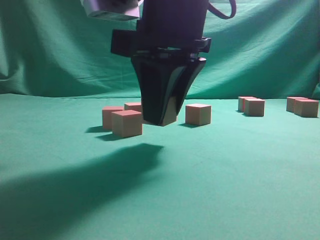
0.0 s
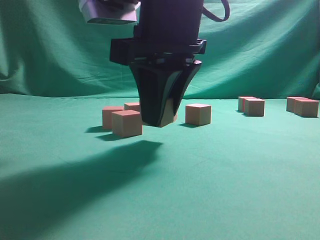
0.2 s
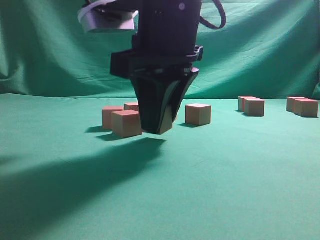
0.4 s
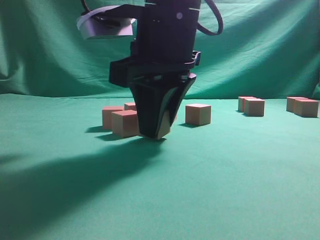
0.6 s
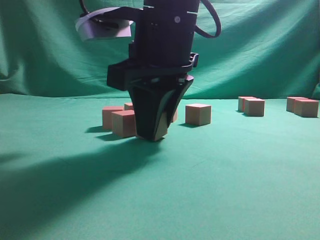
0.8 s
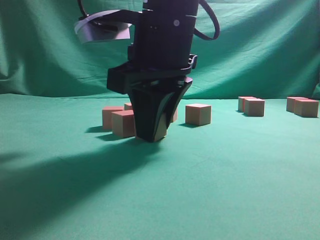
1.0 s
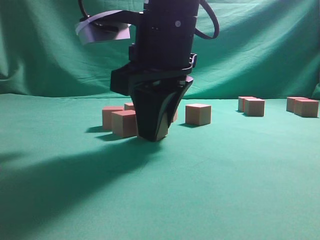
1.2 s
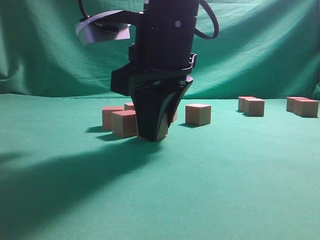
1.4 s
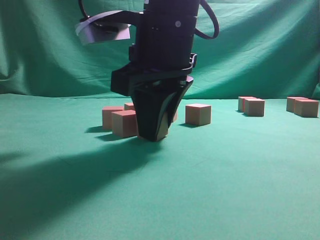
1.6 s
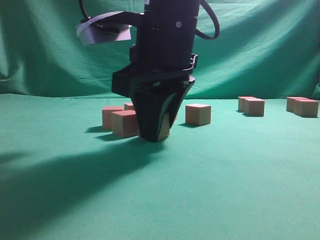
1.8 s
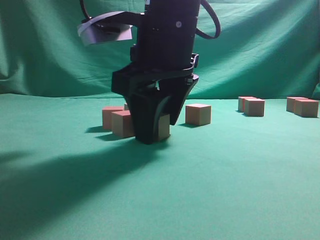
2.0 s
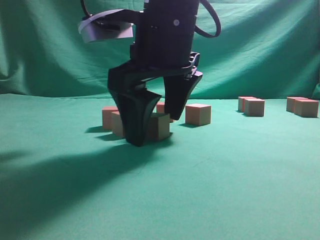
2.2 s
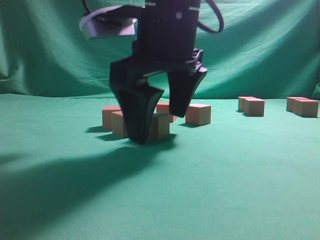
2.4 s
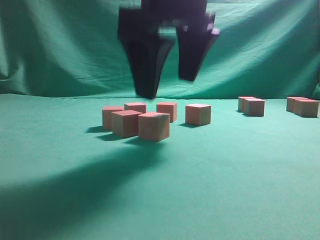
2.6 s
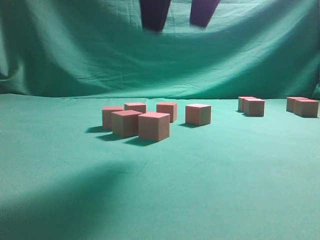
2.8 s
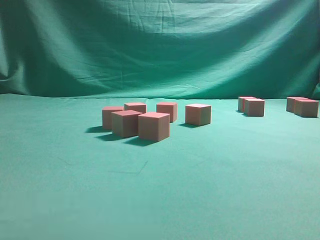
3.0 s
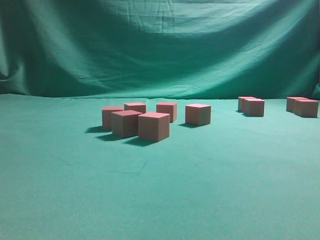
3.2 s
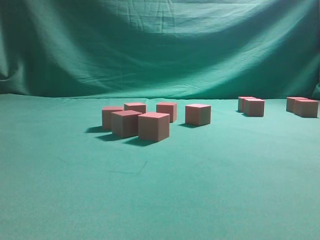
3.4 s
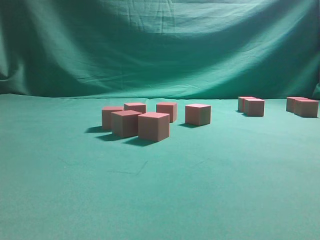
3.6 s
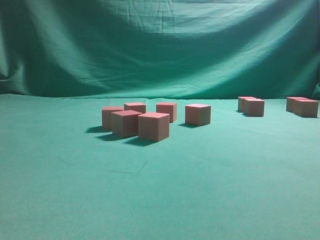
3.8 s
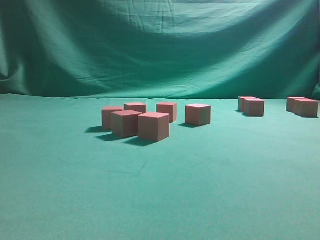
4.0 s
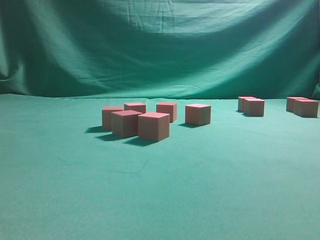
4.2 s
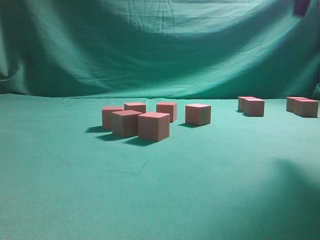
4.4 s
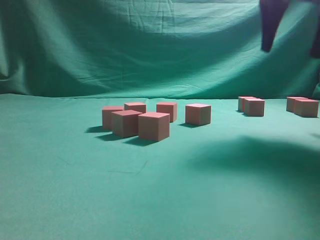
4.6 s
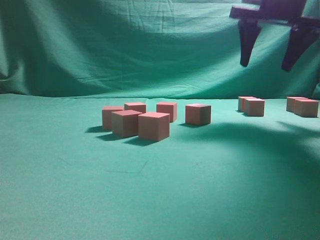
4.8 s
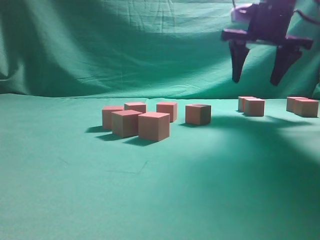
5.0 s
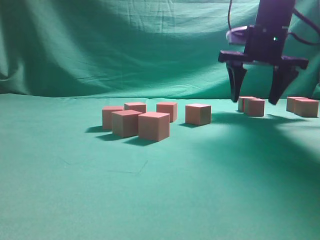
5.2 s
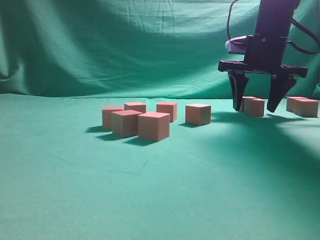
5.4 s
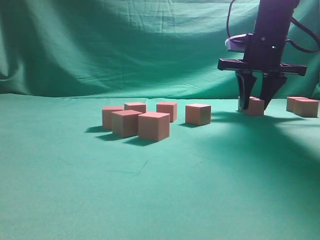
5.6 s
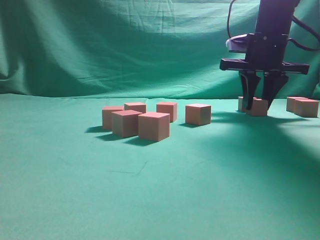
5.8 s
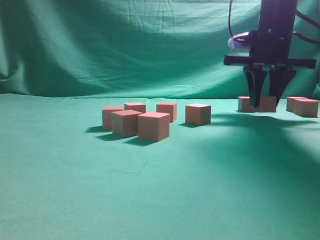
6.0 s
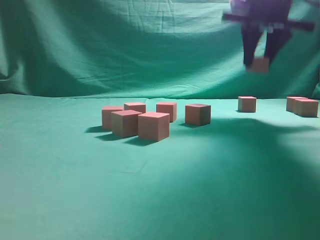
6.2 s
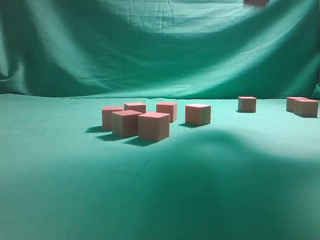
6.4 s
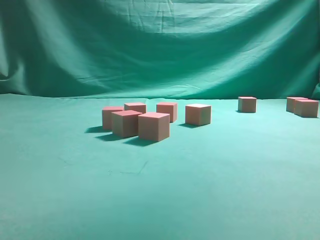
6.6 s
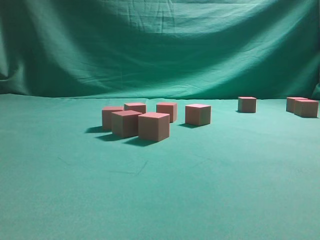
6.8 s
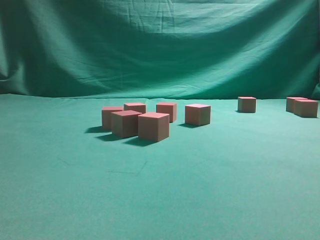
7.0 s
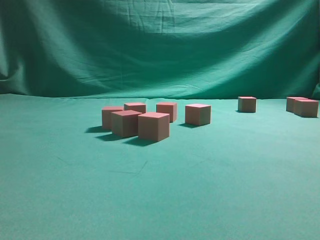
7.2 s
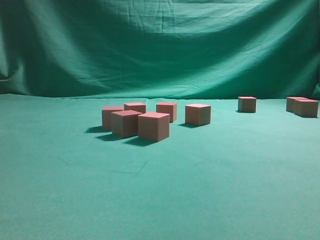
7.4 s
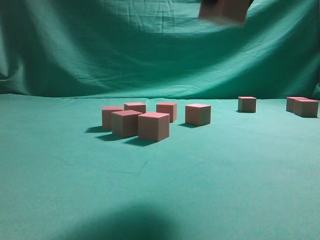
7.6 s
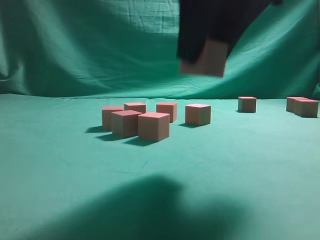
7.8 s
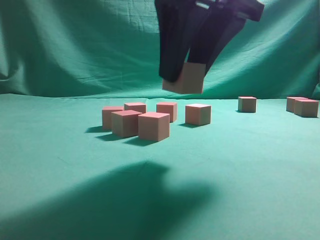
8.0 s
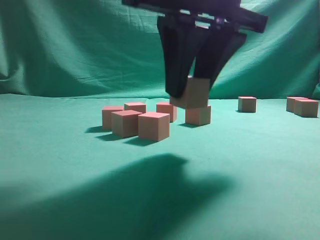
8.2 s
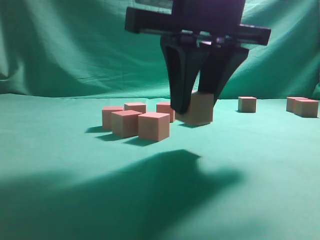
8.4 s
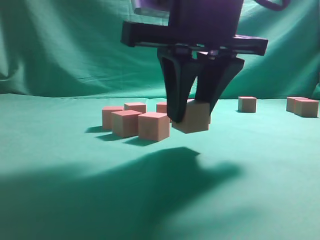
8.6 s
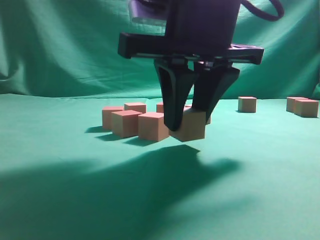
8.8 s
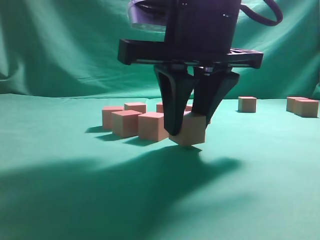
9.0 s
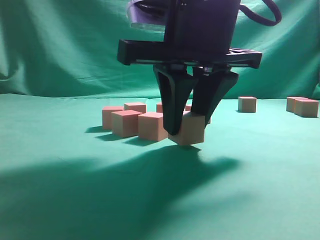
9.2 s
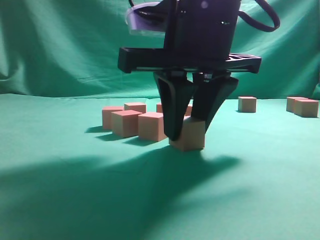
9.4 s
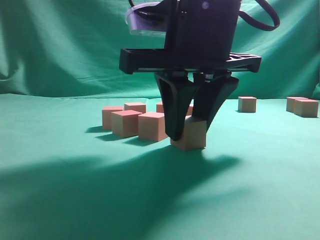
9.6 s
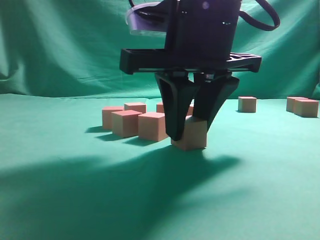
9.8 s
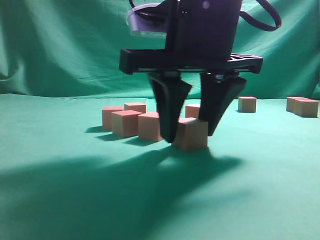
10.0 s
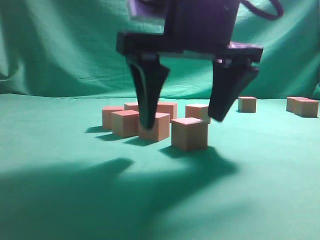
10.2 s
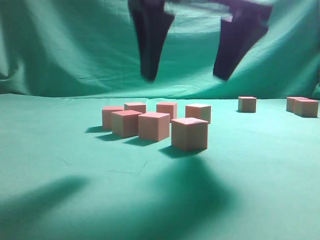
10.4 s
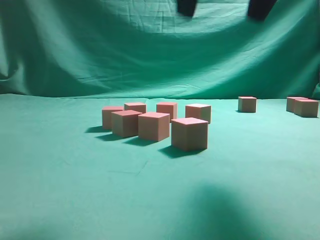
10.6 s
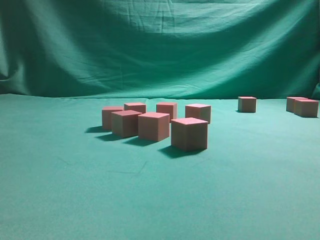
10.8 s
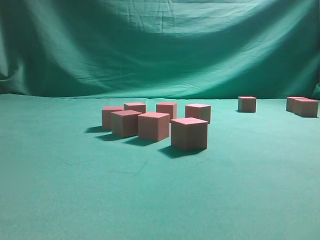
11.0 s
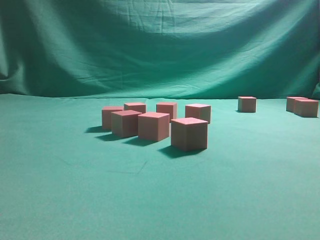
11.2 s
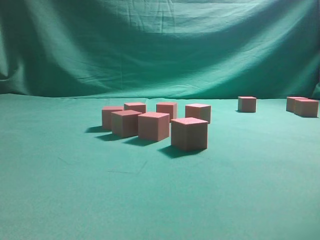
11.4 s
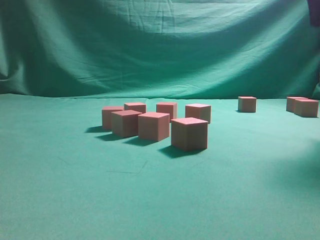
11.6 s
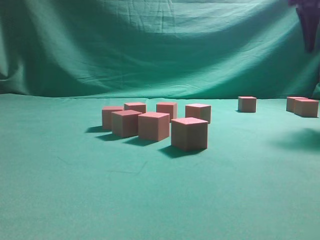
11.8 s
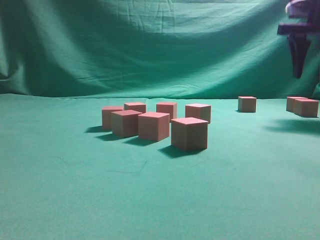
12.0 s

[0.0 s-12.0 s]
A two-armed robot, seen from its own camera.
Task of the whole recording: pick up the multiple cubes in two columns one by one and place them in another position on the table.
Step, 0.0 to 2.6 s: Place the block at the correct position to assemble the letter S.
Step, 2.8 to 5.8 s: Pick up the block on the table.
Step, 6.0 to 10.2 s: Place the block at the correct position to assemble the letter S.
0.0 to 1.6 s: There are only small adjustments of the grippers.
1.6 to 3.0 s: The right gripper travels upward by some 20 cm, and opens up.
3.0 to 4.4 s: The right gripper shifts roughly 20 cm to the right, forward and downward.
4.4 to 6.0 s: The right gripper shifts some 20 cm forward and downward, and closes its fingers.
6.0 to 7.6 s: The right gripper goes approximately 25 cm backward and to the left, and travels upward and back again, about 25 cm each way.
7.6 to 9.0 s: The right gripper is displaced downward by about 10 cm.
9.0 to 10.4 s: The right gripper moves upward, approximately 5 cm, and opens up.
10.4 to 12.0 s: The right gripper moves to the right and forward, approximately 30 cm.

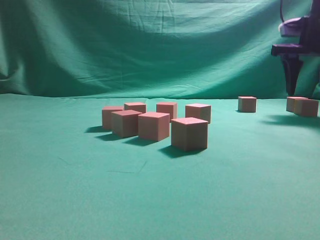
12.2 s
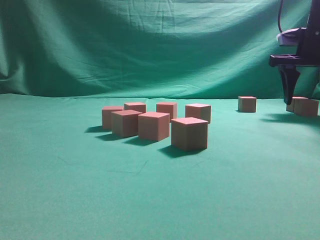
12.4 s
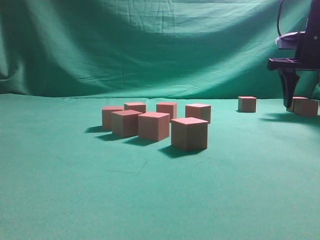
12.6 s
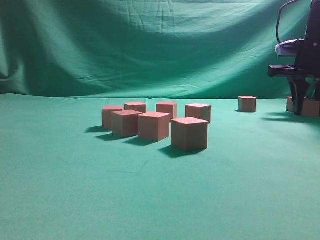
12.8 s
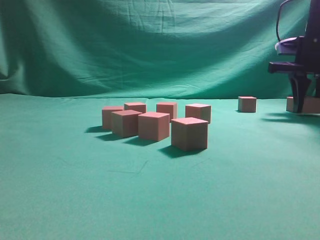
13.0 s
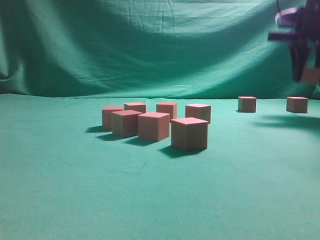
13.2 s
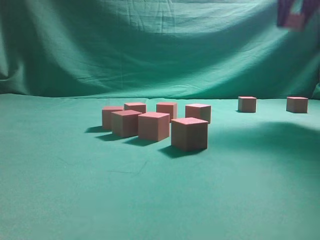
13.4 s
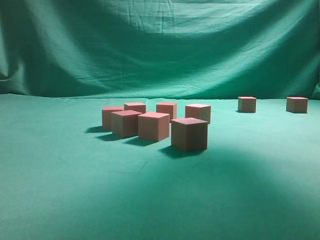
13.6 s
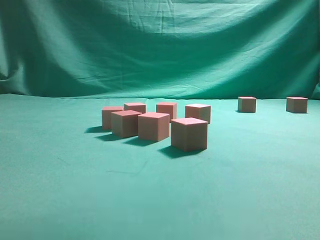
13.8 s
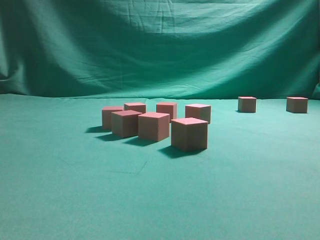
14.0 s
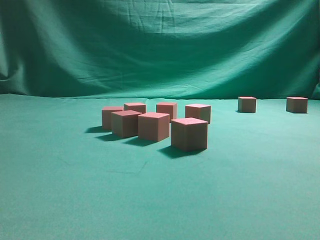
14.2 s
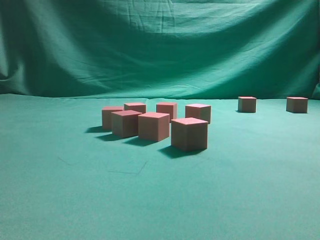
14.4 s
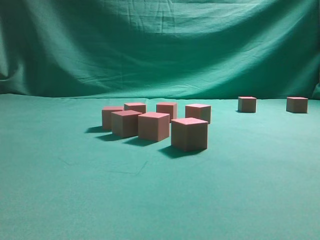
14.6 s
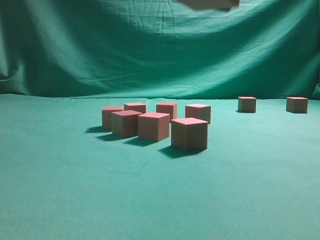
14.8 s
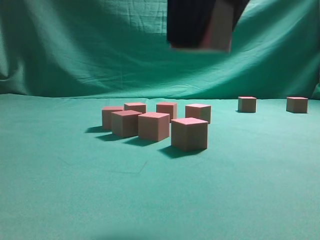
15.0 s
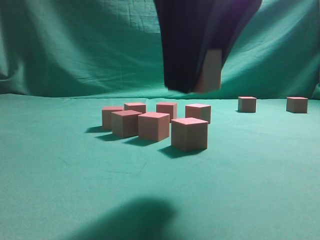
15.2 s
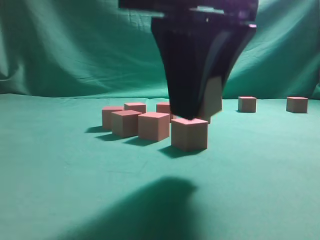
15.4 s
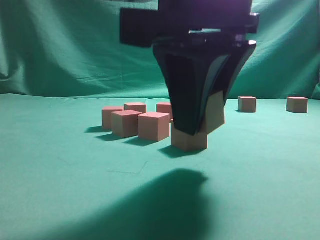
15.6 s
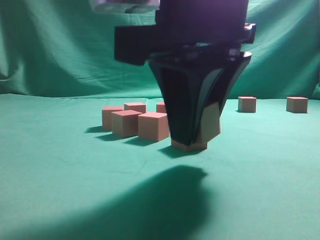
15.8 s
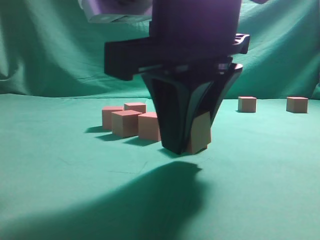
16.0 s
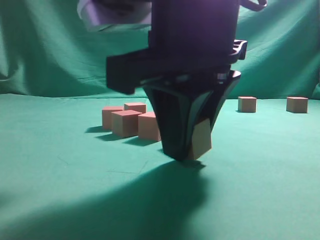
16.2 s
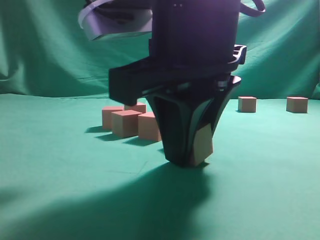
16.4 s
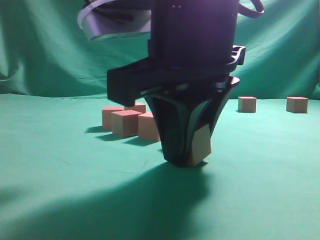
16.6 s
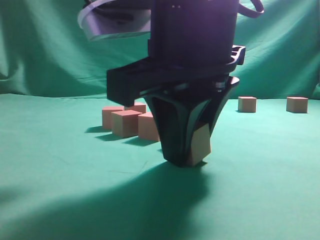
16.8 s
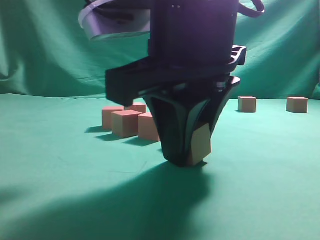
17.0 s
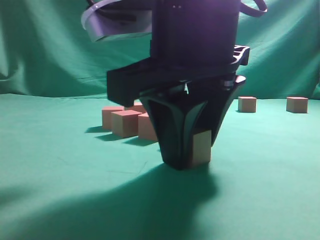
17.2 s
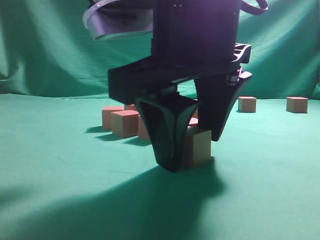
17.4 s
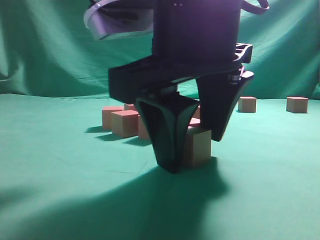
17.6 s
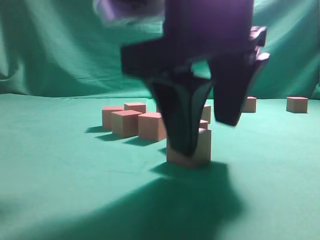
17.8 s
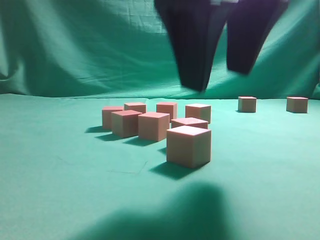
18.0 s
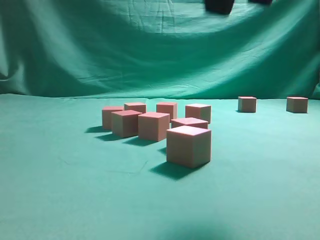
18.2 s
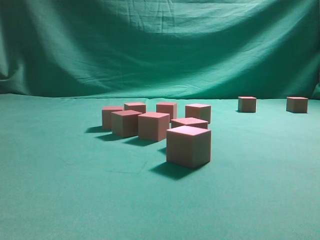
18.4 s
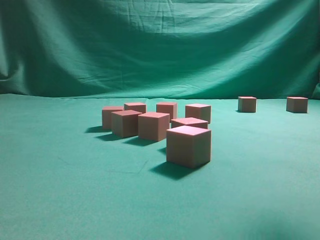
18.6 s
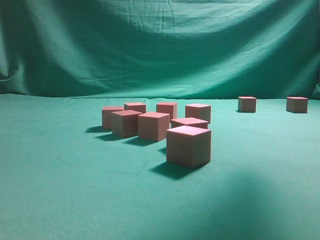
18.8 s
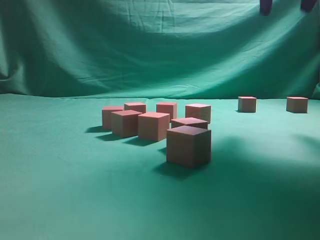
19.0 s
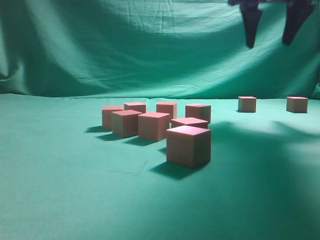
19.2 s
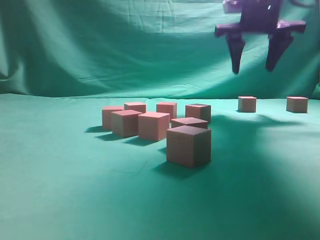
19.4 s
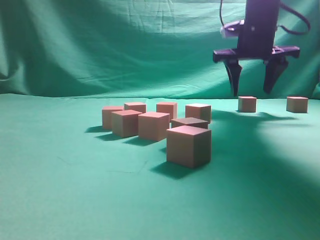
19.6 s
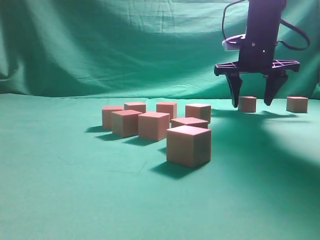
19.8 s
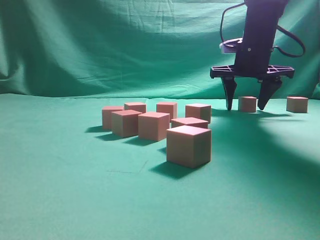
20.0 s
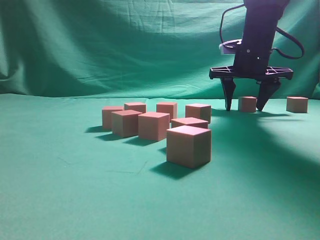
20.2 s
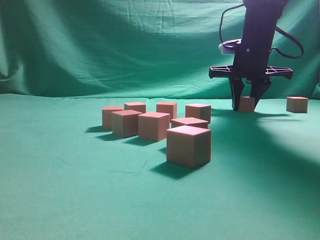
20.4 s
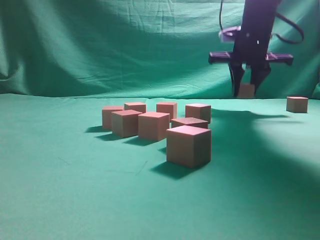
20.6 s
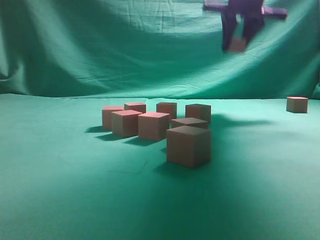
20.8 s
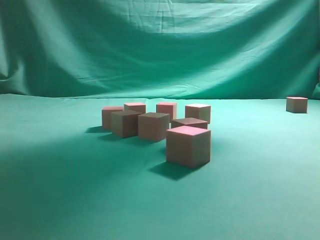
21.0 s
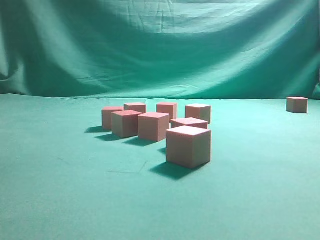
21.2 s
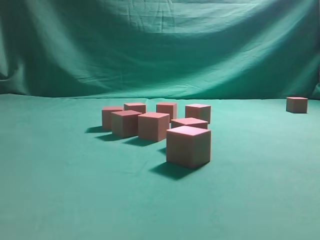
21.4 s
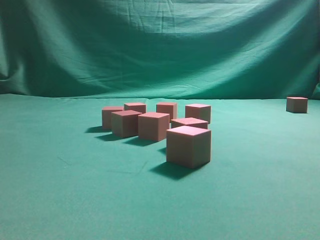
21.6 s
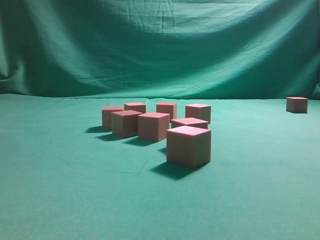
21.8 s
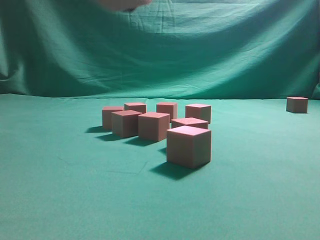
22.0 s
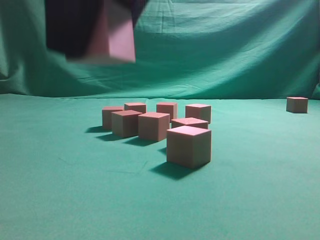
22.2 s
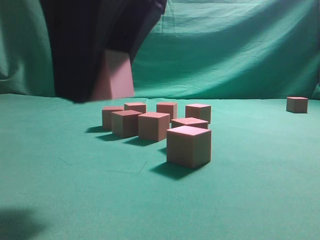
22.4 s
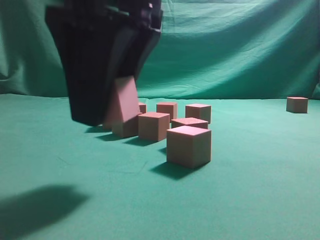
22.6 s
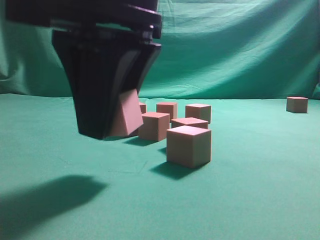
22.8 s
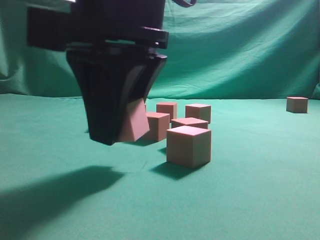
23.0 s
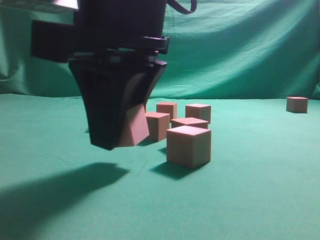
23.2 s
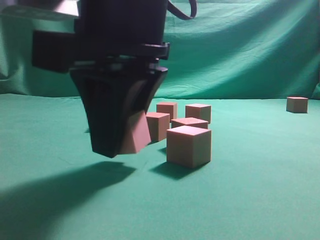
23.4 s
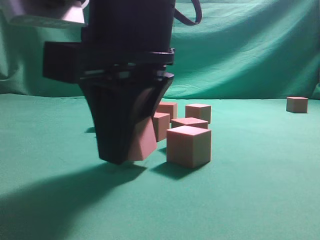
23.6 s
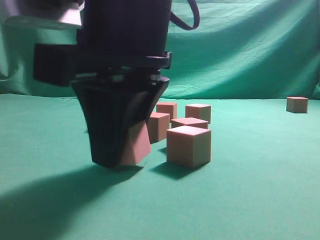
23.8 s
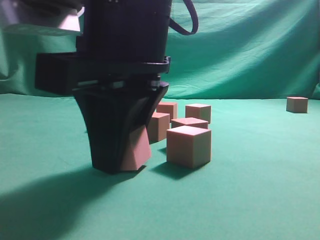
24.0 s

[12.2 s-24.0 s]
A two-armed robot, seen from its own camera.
Task of the whole recording: pick up the multiple cubes in two columns one by one and place them in another position on the table.
Step, 13.2 to 17.8 s: Place the block at the correct position to assemble the letter S.
Step, 18.0 to 20.4 s: Pick up the block on the table.
12.2 to 13.6 s: The right gripper heads upward, covering roughly 20 cm, and closes up.
13.6 to 15.2 s: The right gripper travels downward, backward and to the left by about 30 cm.
15.2 to 16.6 s: The right gripper moves downward, roughly 5 cm.
16.6 to 18.2 s: The right gripper is displaced upward and to the right by about 15 cm.
18.2 to 19.6 s: The right gripper moves forward, about 30 cm.
19.6 to 21.0 s: The right gripper shifts about 20 cm upward, and closes up.
21.0 to 22.6 s: The right gripper is displaced backward, downward and to the left by roughly 35 cm.
22.6 to 24.0 s: The grippers make only small movements.
